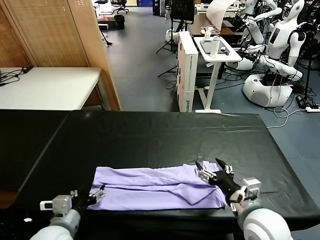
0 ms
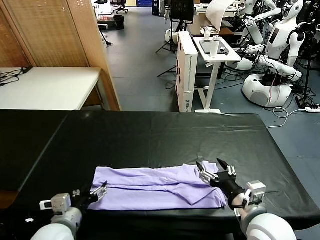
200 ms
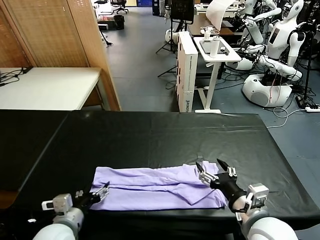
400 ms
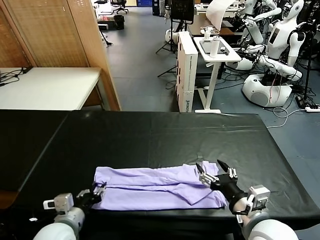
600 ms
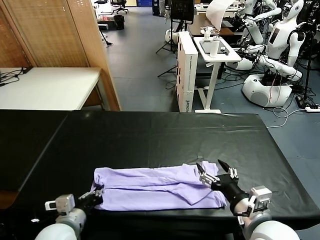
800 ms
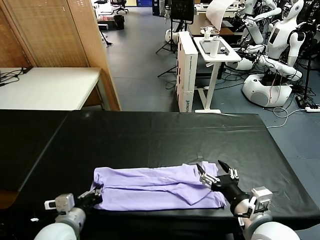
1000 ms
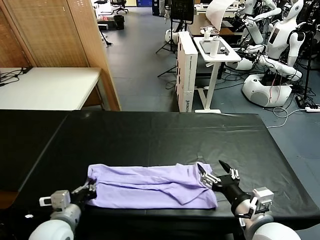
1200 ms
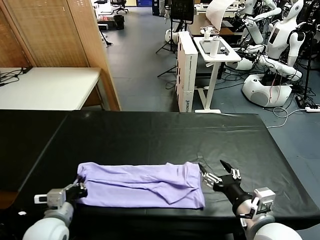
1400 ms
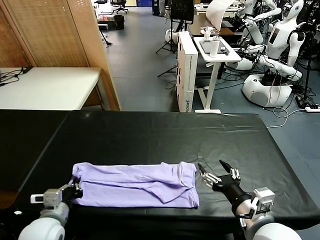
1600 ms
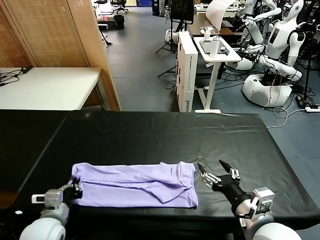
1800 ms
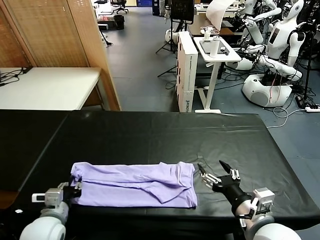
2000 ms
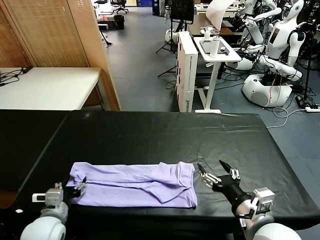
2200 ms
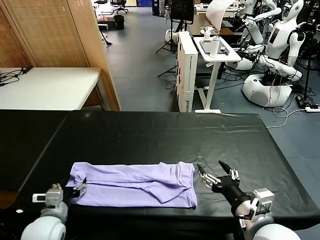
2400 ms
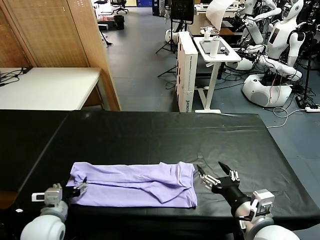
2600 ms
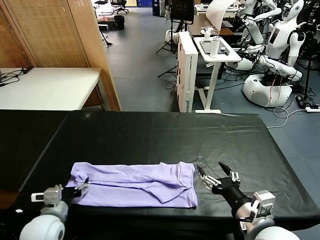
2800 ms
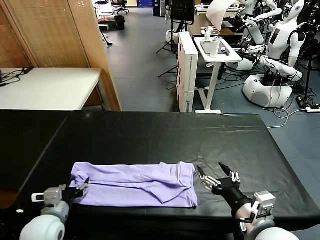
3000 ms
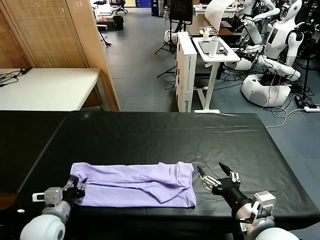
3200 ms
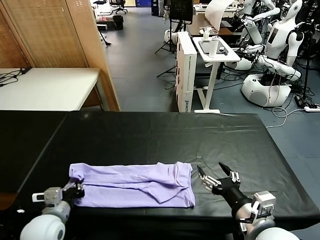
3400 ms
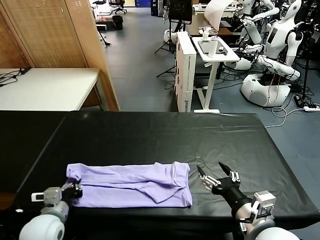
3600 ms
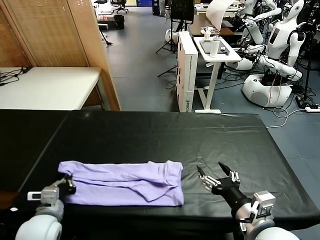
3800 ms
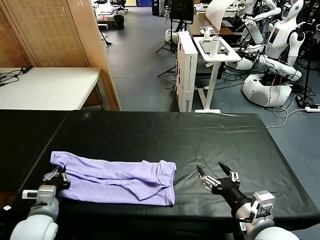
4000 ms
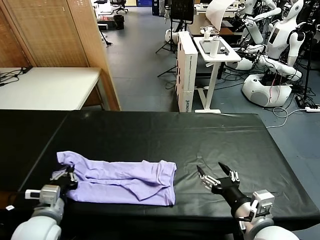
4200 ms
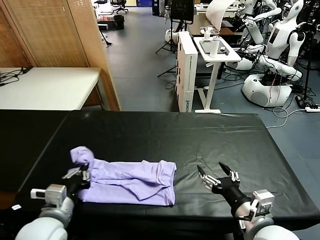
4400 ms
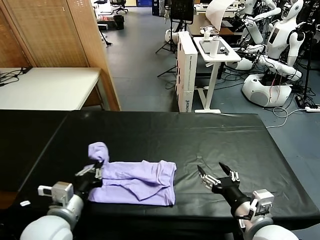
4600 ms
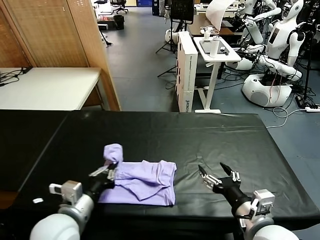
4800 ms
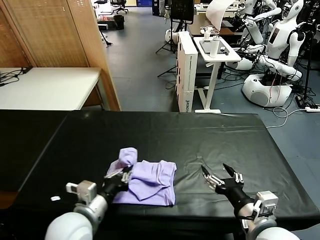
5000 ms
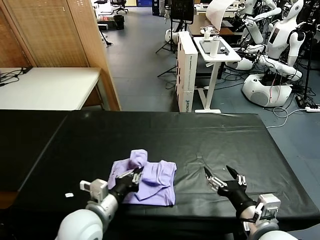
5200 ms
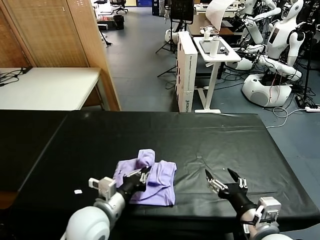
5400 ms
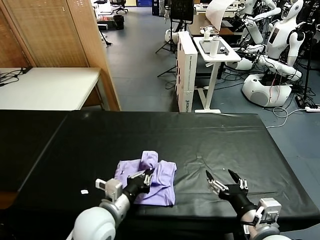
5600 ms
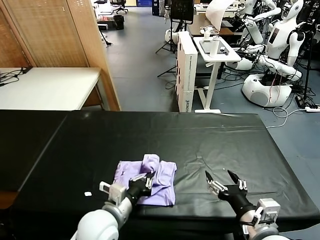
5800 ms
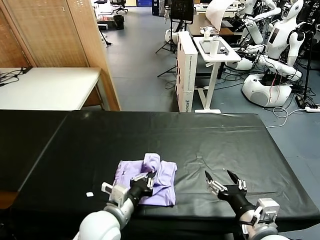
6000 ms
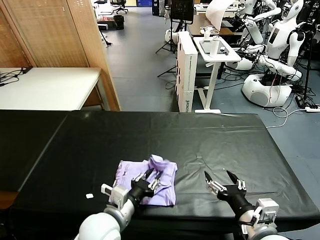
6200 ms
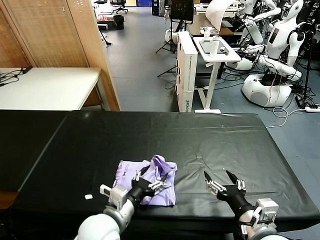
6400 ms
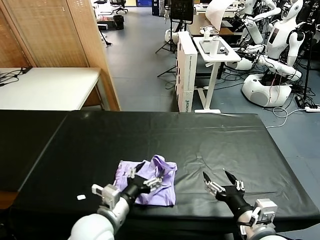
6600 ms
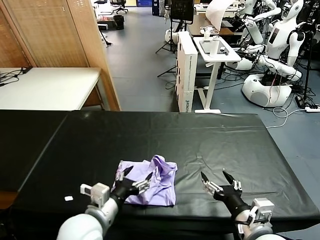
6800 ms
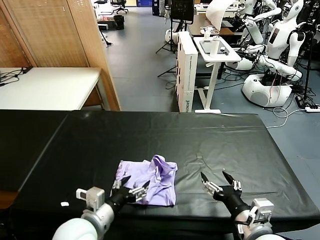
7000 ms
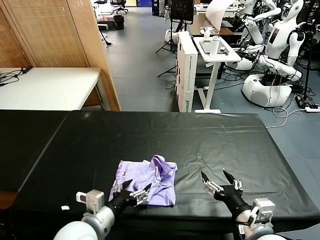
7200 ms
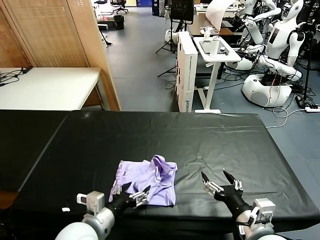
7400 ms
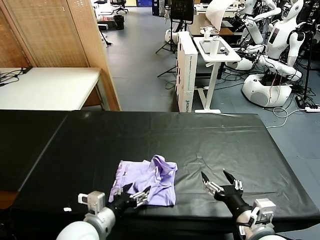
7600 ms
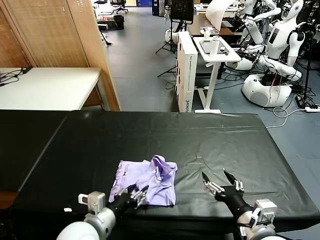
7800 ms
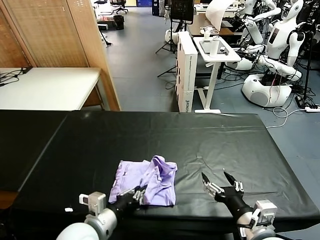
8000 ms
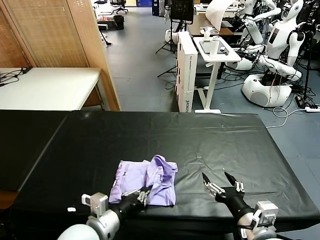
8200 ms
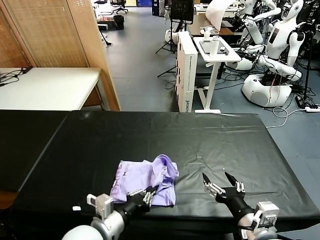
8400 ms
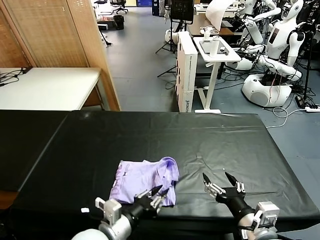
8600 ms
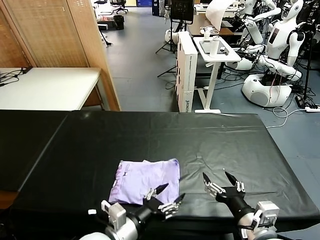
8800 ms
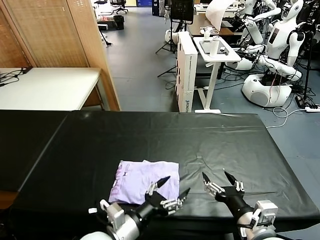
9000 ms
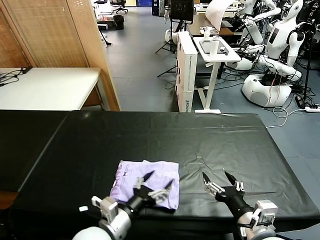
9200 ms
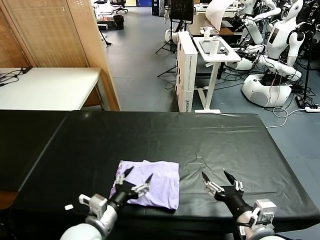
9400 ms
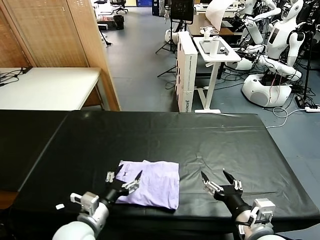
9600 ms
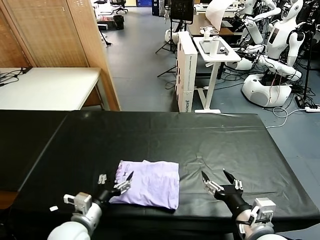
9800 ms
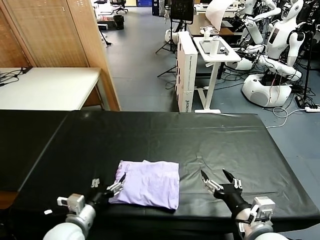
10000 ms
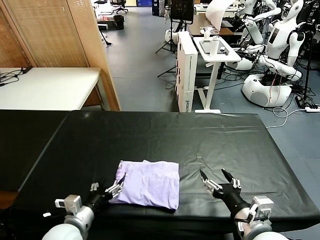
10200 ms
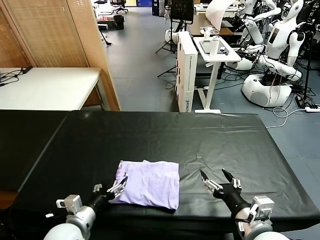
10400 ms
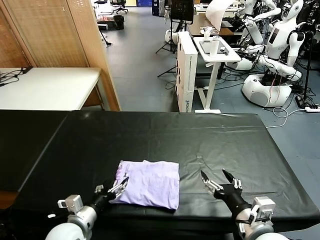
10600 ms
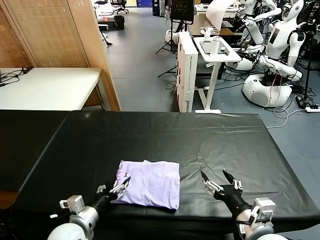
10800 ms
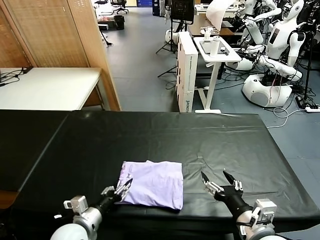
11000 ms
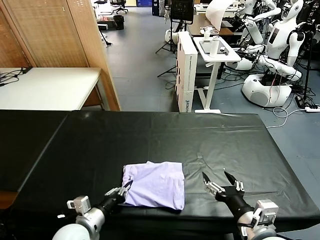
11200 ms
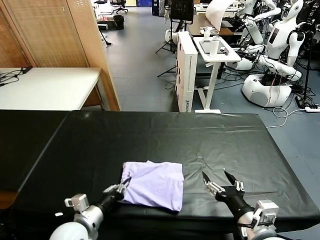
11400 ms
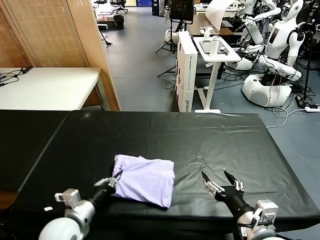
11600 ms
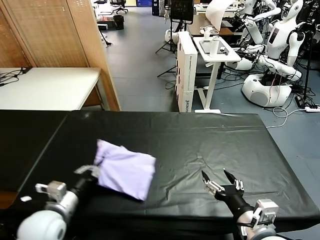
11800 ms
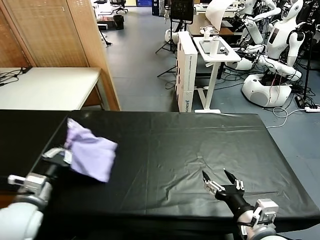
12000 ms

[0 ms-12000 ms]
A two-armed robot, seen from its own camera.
Task of the whole recording: fold and organize the clothes.
Step, 0 ms to 3600 ms: use the left gripper to clamp the left edge of the fabric.
Step, 3800 ms to 9200 ms: use the left gripper to drag the left edge of the fabric to the left and folds it over the right edge.
0 ms to 1600 ms: The left gripper closes up.
1600 ms to 3000 ms: The left gripper opens up.
3000 ms to 4400 ms: The left gripper shifts some 10 cm upward and to the right, and closes up.
4400 ms to 6000 ms: The left gripper moves to the right and downward, about 10 cm.
6000 ms to 7600 ms: The left gripper moves about 5 cm, and opens up.
7600 ms to 9000 ms: The left gripper closes, then reopens.
9000 ms to 10400 ms: The left gripper goes roughly 15 cm to the left and downward.
10400 ms to 12000 ms: The left gripper heads upward and to the left, covering approximately 15 cm, and closes.

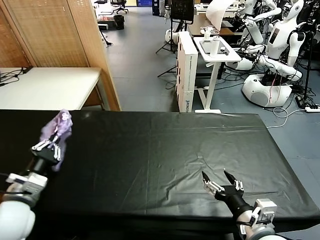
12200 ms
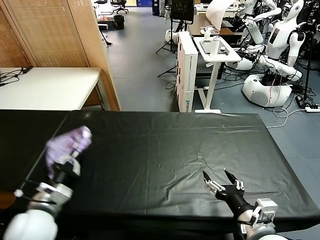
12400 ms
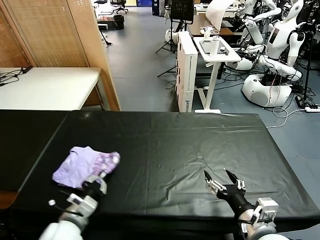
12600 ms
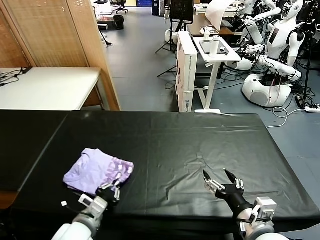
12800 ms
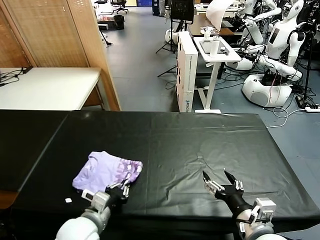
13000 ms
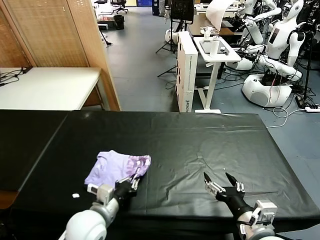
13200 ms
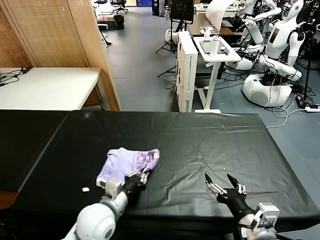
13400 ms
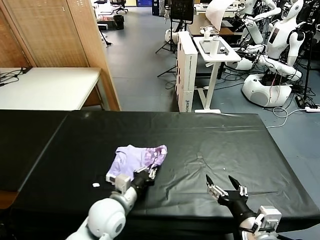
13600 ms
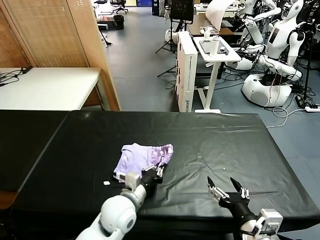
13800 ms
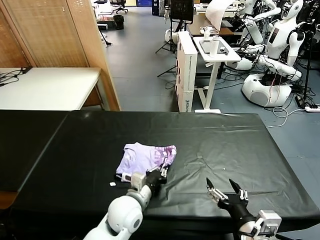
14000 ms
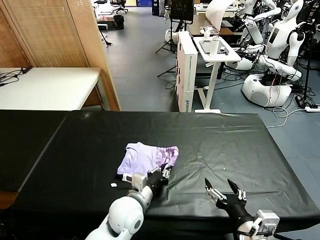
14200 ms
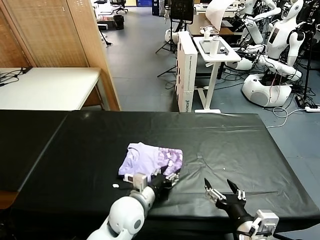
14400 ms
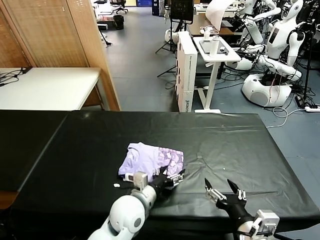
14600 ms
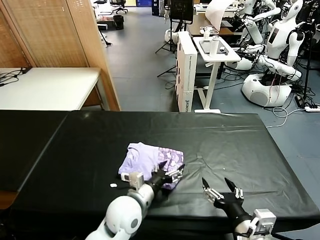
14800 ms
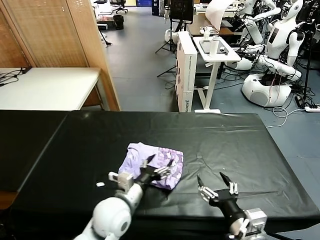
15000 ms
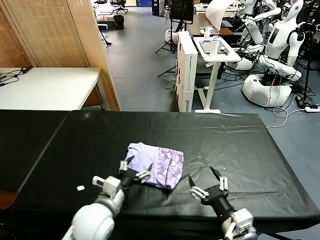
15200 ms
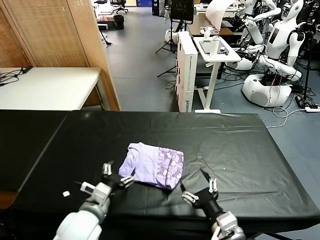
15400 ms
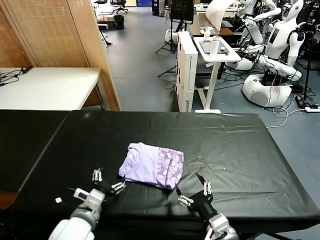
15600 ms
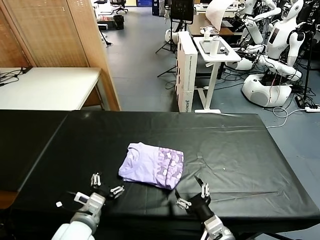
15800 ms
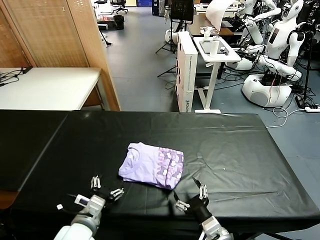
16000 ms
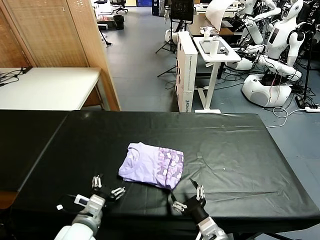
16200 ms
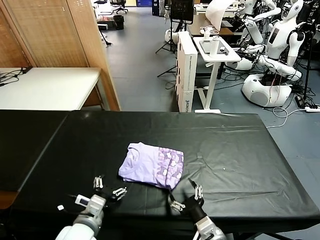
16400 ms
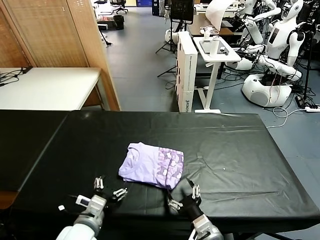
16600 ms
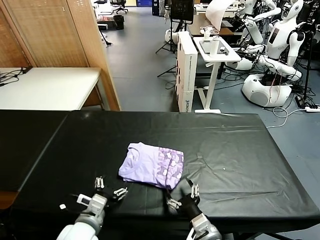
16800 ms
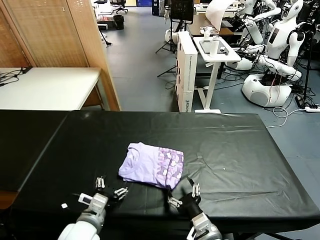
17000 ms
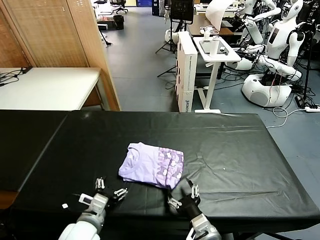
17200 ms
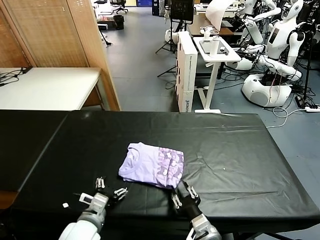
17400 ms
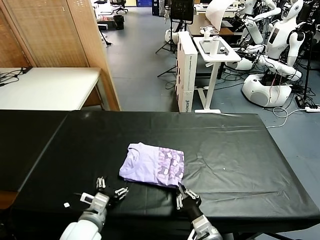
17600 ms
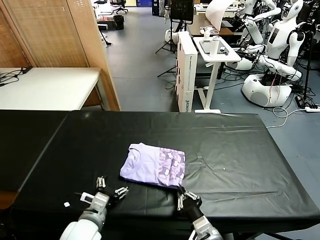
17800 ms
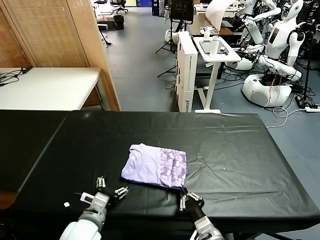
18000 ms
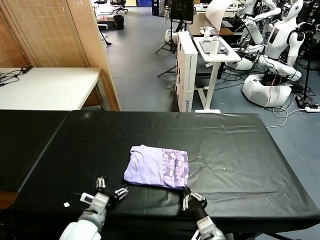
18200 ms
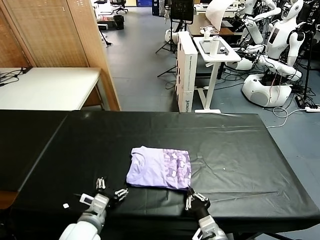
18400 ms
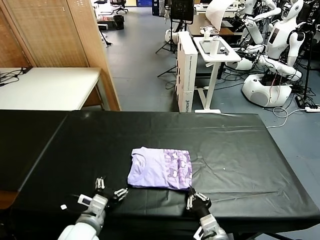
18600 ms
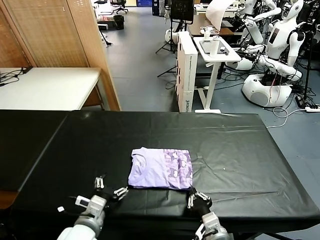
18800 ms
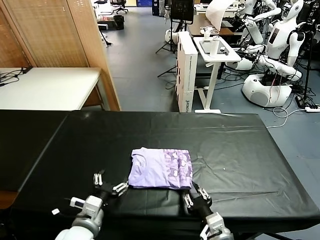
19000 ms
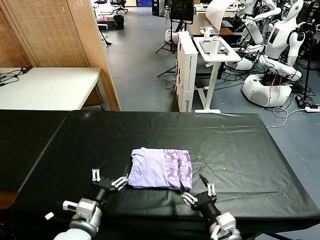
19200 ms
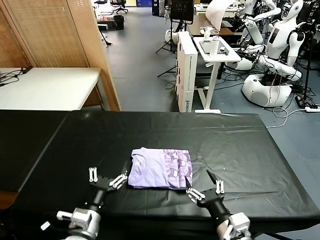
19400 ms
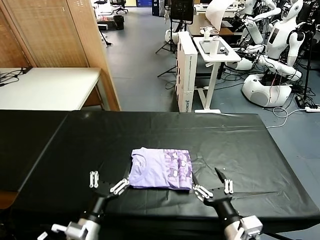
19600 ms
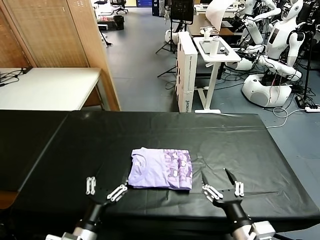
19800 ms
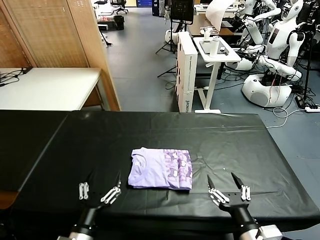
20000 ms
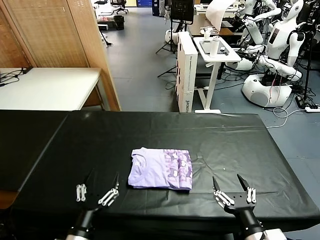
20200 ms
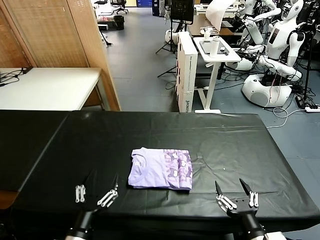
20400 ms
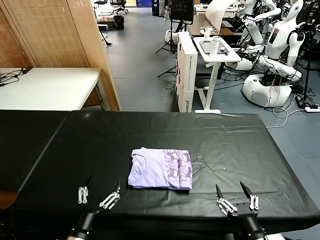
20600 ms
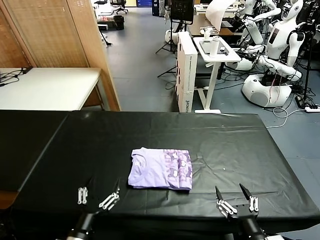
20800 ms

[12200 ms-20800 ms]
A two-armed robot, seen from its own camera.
Task of the whole recording: fold and organize the clothes.
Step, 12200 ms to 14800 ms: Flip the folded clothes over with left gripper.
Step, 15000 ms to 19400 ms: Drag the clothes to the center of the table.
12200 ms to 13600 ms: The left gripper moves to the right, about 20 cm.
13600 ms to 15000 ms: The left gripper is displaced to the left by about 5 cm, and opens its fingers.
15000 ms to 16600 ms: The right gripper is displaced downward and to the left by some 10 cm; the left gripper changes place by approximately 5 cm.
16600 ms to 18000 ms: The right gripper closes up.
18000 ms to 19400 ms: The left gripper travels backward by some 5 cm. The right gripper travels upward by about 10 cm, and opens.
19400 ms to 20800 ms: The right gripper shifts by some 5 cm.
